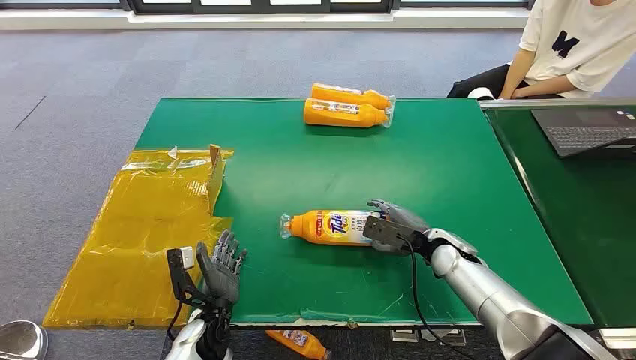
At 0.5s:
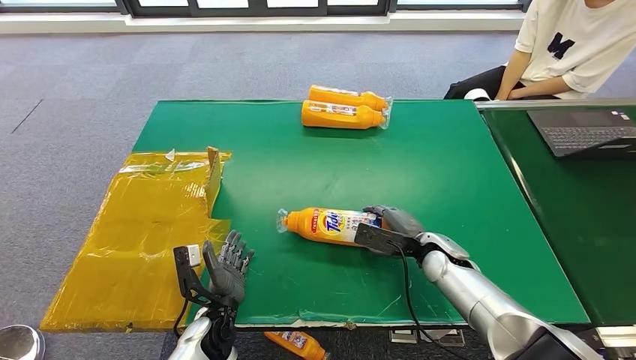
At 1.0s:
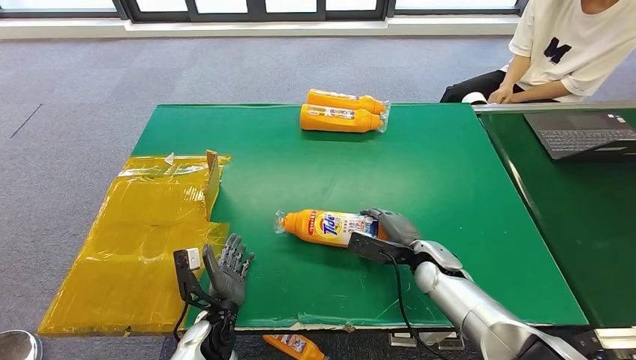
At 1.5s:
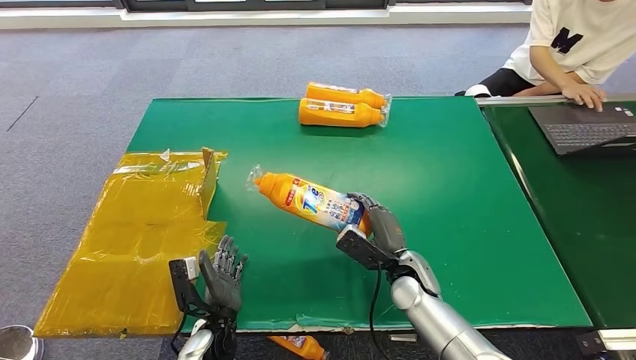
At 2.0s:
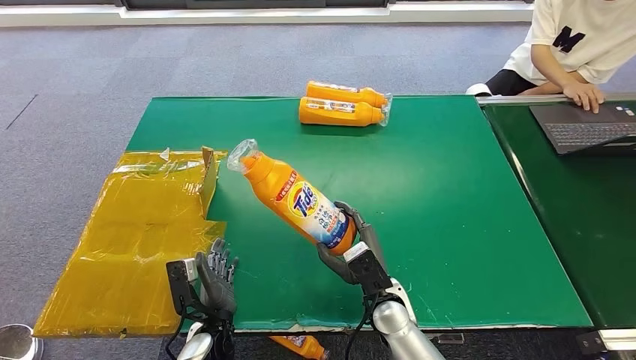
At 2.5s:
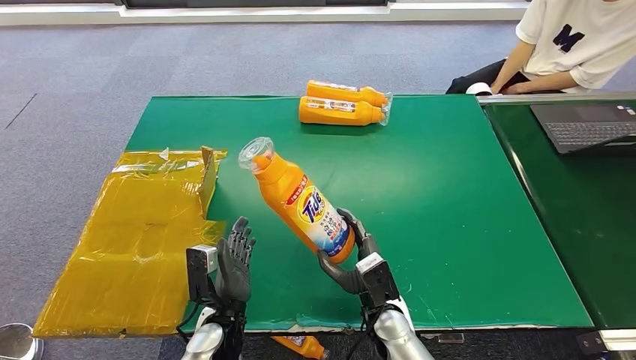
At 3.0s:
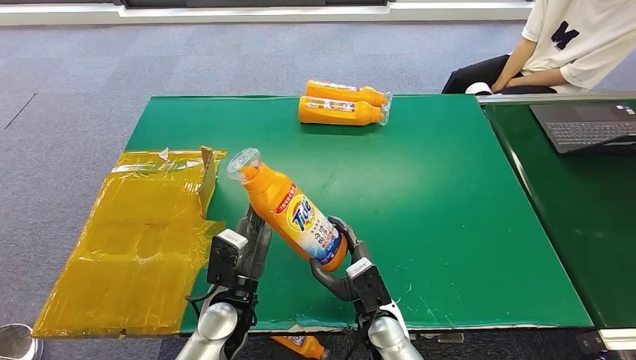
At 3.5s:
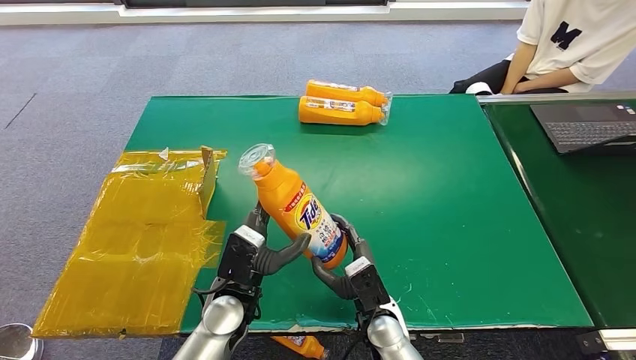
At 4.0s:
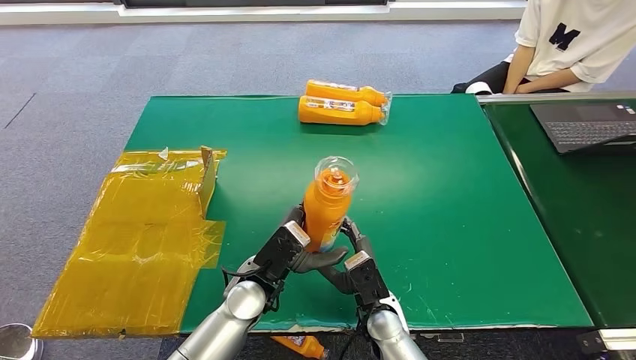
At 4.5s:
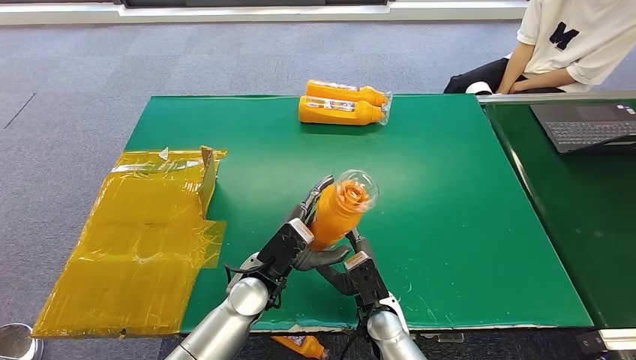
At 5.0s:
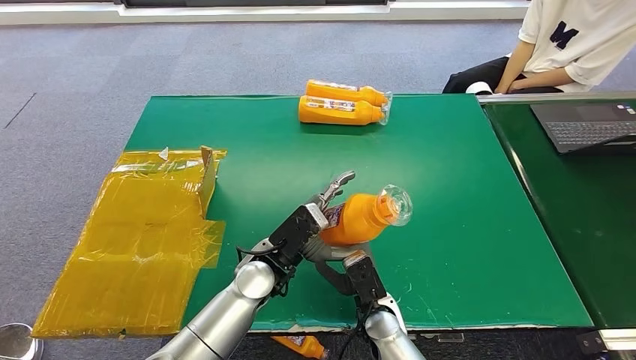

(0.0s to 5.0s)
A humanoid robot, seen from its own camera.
Step, 0.0s - 1.5s: Pick up the bottle from the table.
Step, 2.5s - 5.0s: Turn the bottle to the front side.
2.5s - 5.0s: The left hand shifts about 15 cm upward, forward and to the right.
